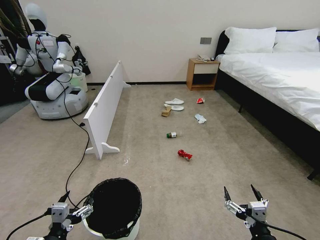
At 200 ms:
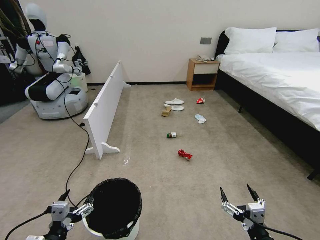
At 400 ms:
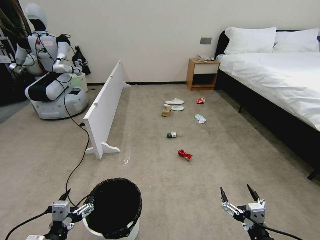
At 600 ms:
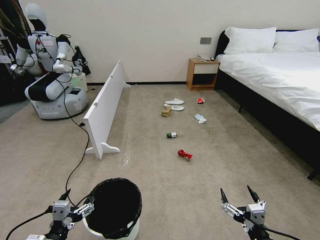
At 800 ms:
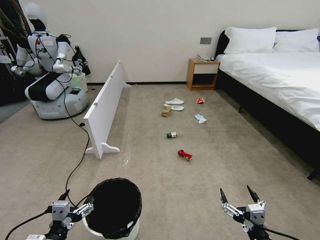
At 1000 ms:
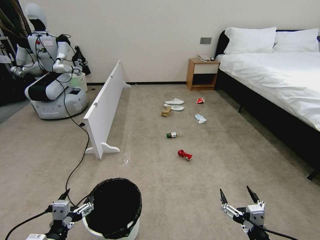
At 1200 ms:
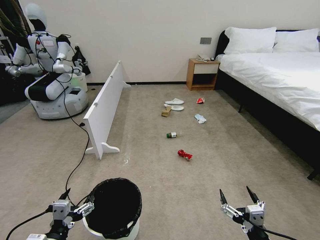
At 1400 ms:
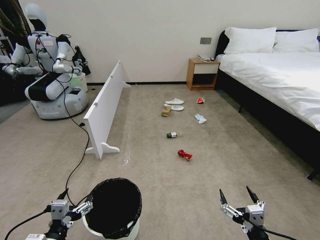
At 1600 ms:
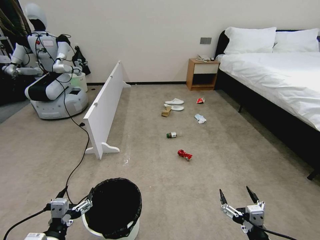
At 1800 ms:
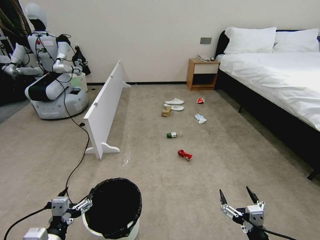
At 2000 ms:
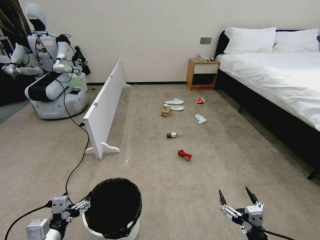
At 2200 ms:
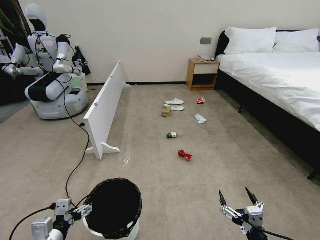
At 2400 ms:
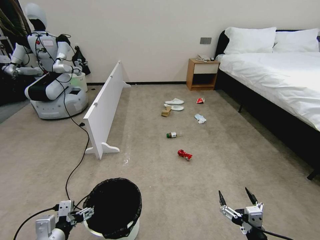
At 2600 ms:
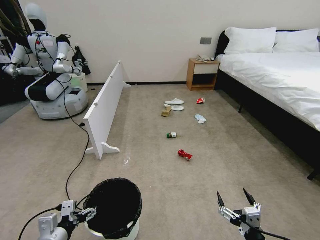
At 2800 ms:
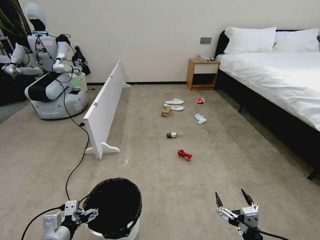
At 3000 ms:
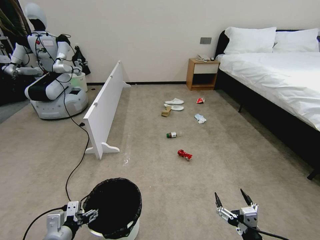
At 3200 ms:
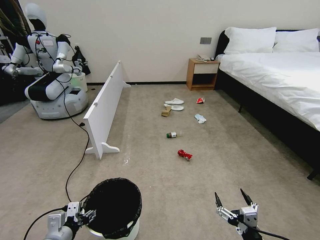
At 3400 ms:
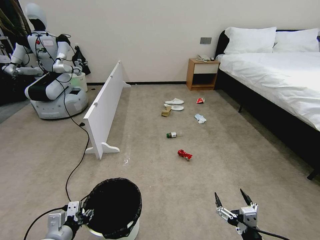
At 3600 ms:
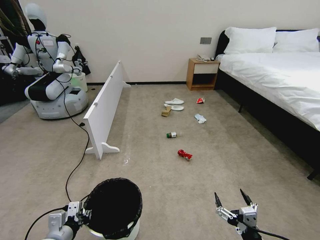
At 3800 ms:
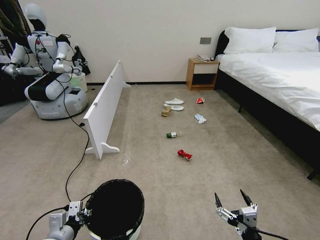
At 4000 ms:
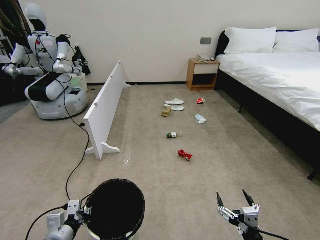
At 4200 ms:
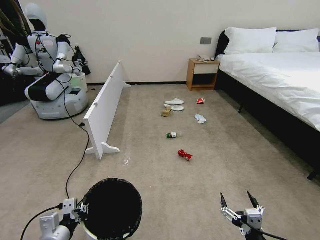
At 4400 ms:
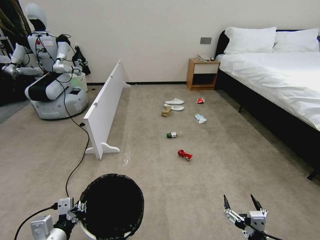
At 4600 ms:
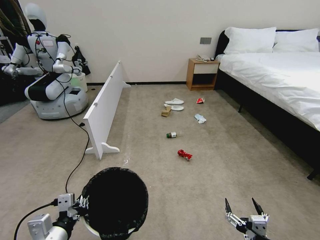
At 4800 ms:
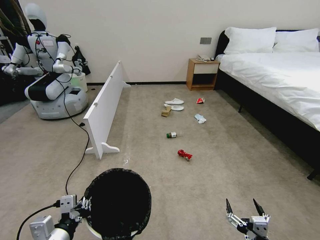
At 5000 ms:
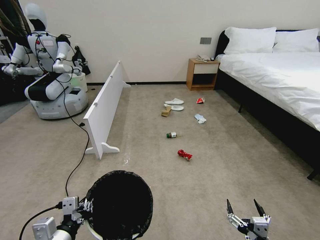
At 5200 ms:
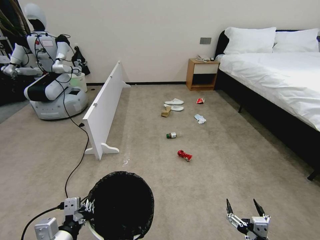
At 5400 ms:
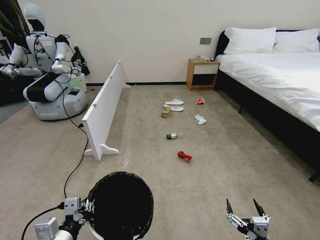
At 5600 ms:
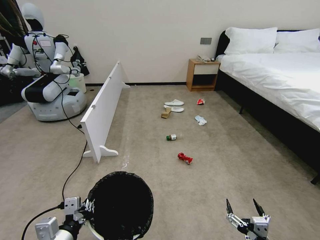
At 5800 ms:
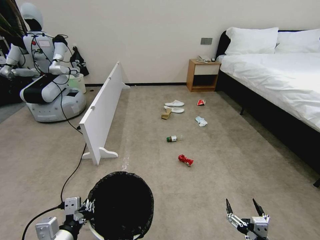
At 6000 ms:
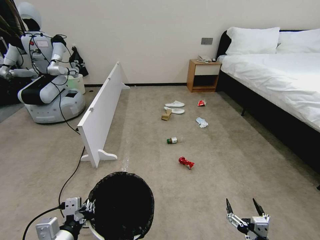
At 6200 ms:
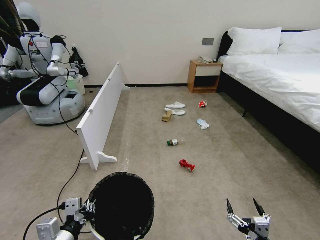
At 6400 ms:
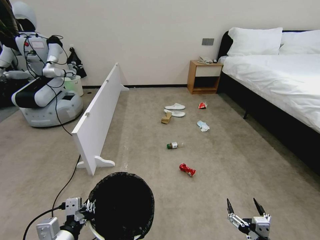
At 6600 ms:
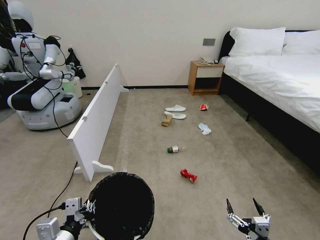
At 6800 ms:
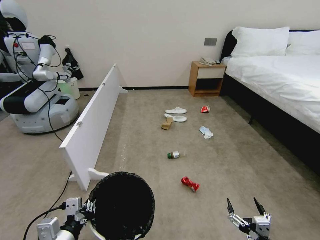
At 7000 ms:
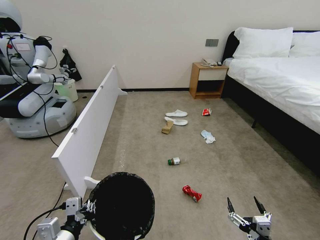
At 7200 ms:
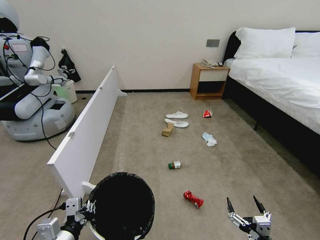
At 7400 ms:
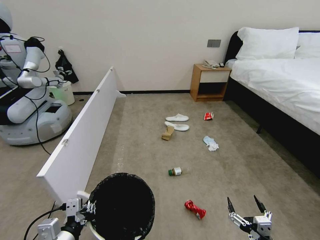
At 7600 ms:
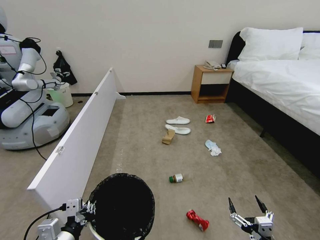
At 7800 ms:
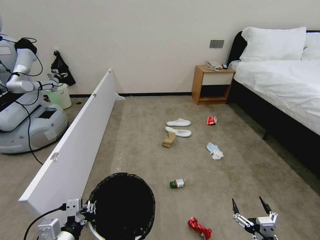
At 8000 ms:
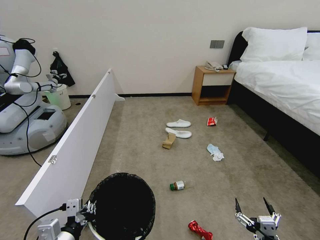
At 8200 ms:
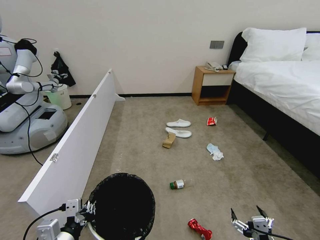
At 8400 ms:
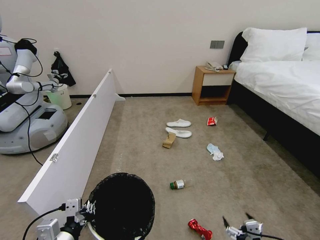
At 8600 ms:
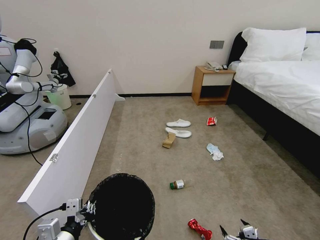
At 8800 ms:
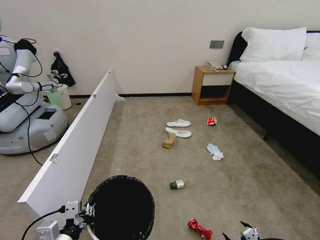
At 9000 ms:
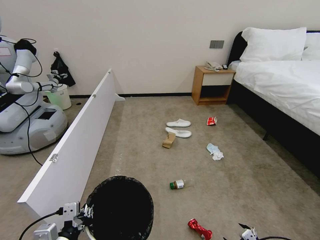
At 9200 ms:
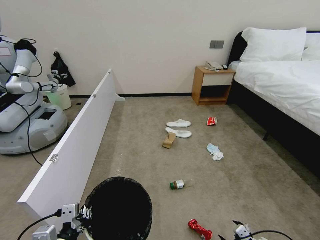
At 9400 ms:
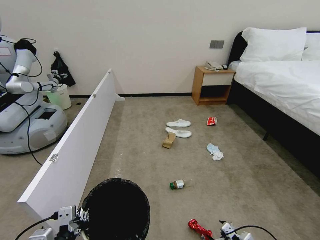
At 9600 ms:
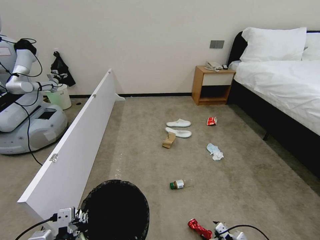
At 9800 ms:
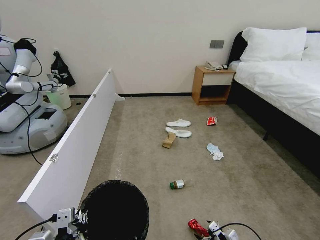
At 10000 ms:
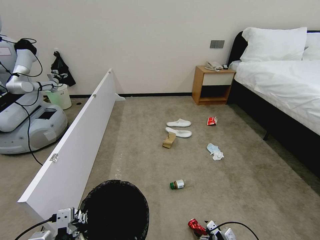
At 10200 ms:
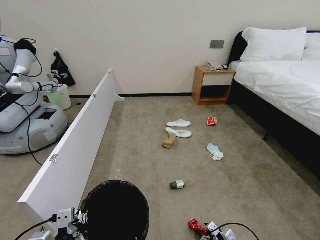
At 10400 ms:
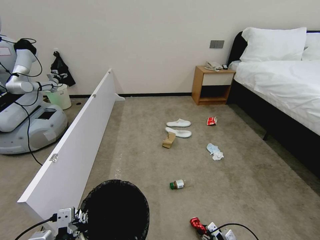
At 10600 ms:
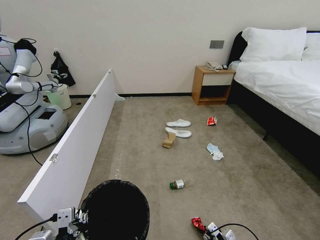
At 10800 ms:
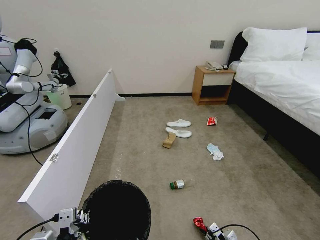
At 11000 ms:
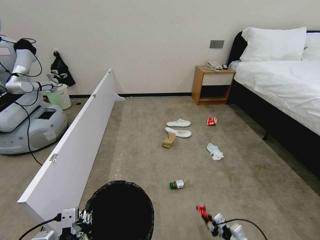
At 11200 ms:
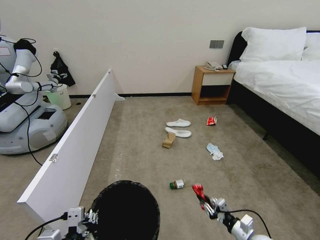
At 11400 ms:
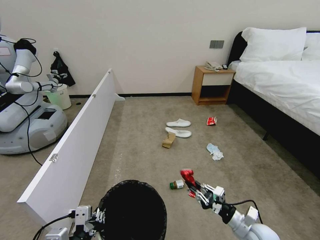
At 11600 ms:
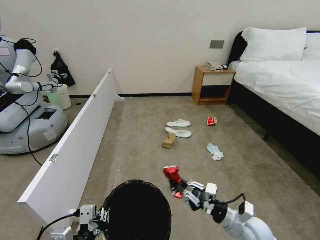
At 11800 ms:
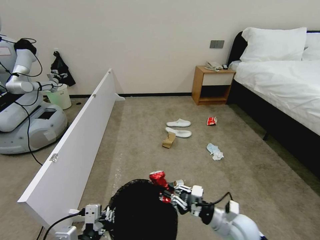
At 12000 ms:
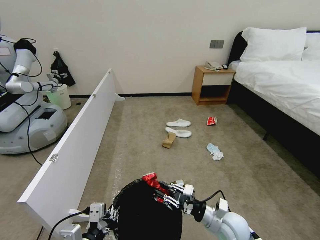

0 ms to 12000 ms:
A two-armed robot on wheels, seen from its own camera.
Task of the whole recording: Pick up the trash bin, then pick up the garbage from the floor and place it into the trash bin.
1600 ms to 3000 ms: The left gripper shifts roughly 5 cm forward.
3000 ms to 4400 ms: The left gripper closes its fingers.
4400 ms to 6000 ms: The grippers stay close to where they were, moving slightly.
7600 ms to 9000 ms: The right gripper is displaced to the right by approximately 10 cm.
9000 ms to 10400 ms: The right gripper goes roughly 15 cm downward, forward and to the left, and closes its fingers.
10400 ms to 12000 ms: The right gripper moves upward and to the left, roughly 20 cm. The left gripper changes place by some 5 cm.

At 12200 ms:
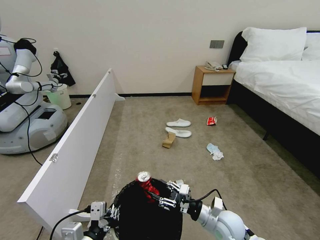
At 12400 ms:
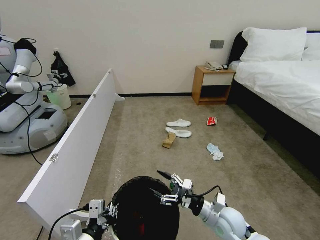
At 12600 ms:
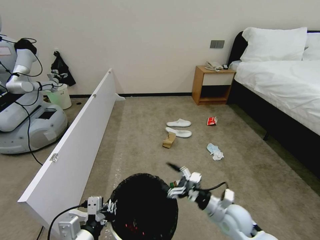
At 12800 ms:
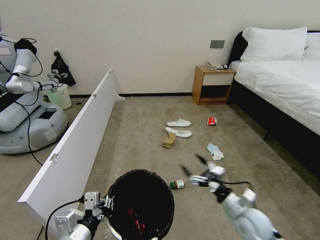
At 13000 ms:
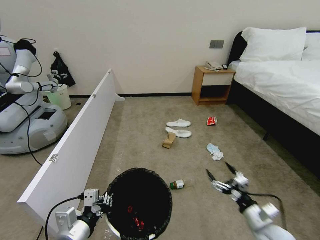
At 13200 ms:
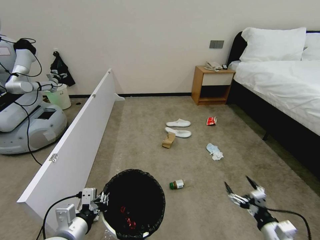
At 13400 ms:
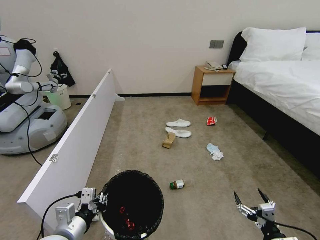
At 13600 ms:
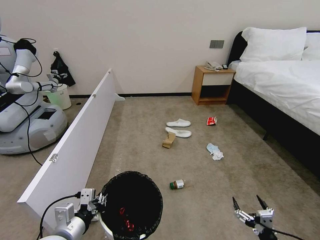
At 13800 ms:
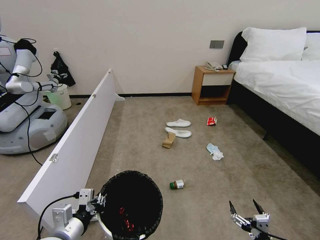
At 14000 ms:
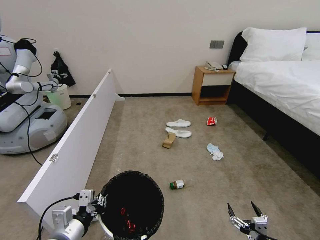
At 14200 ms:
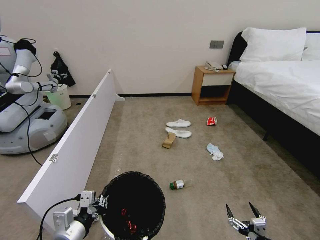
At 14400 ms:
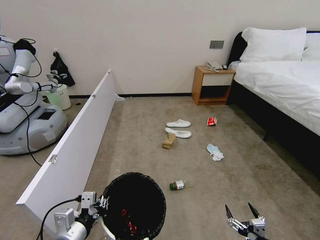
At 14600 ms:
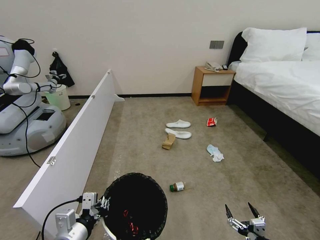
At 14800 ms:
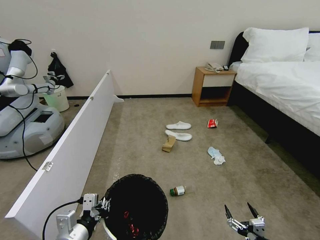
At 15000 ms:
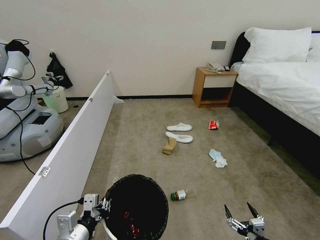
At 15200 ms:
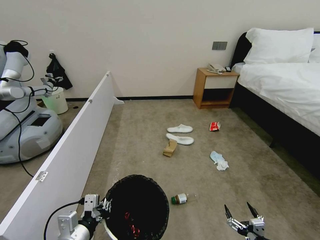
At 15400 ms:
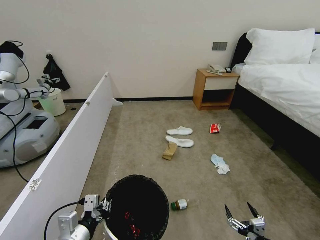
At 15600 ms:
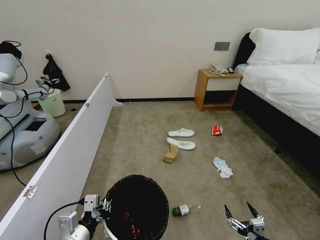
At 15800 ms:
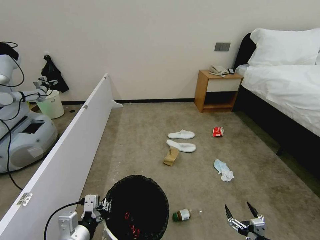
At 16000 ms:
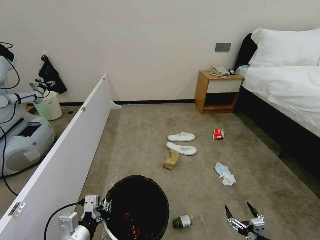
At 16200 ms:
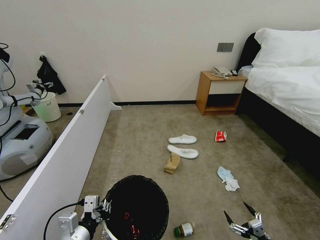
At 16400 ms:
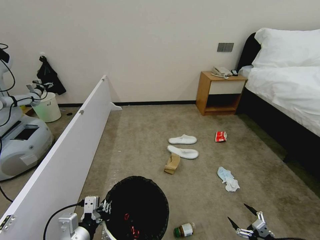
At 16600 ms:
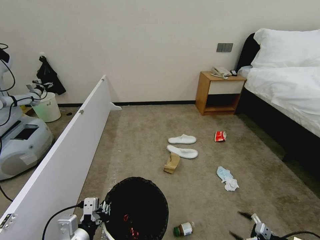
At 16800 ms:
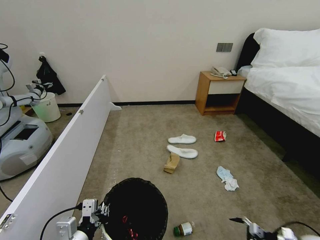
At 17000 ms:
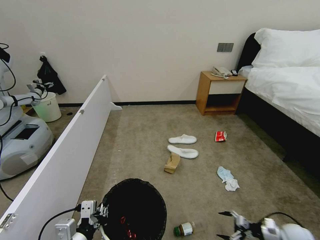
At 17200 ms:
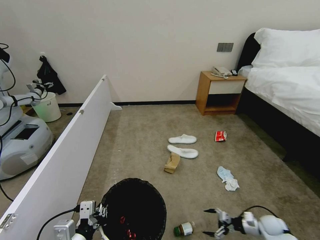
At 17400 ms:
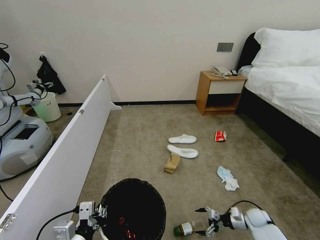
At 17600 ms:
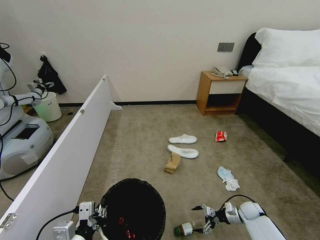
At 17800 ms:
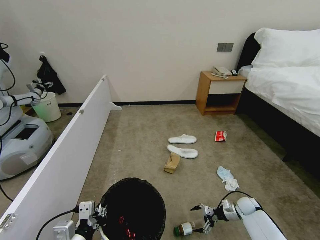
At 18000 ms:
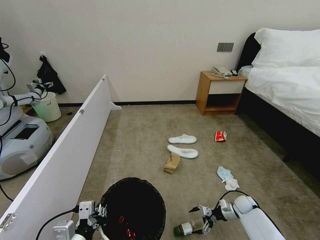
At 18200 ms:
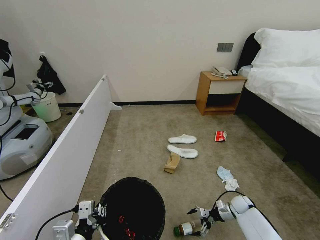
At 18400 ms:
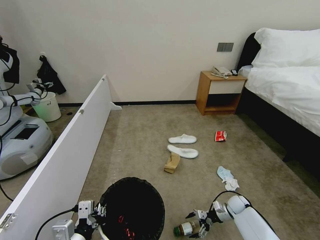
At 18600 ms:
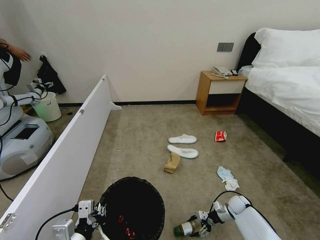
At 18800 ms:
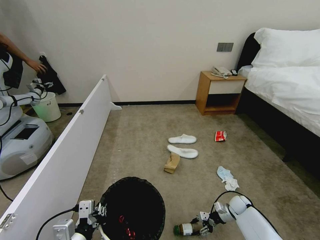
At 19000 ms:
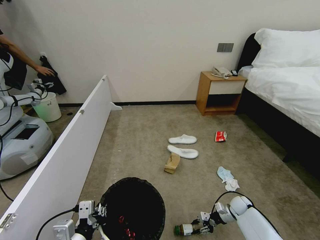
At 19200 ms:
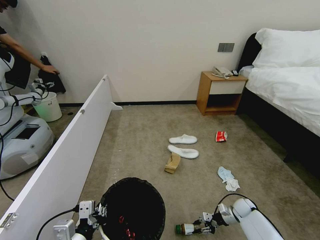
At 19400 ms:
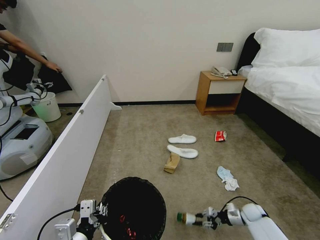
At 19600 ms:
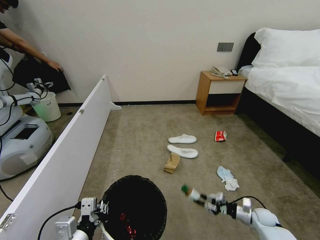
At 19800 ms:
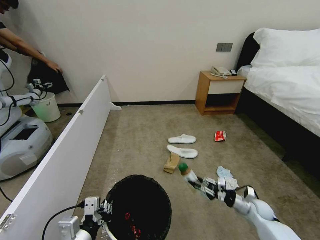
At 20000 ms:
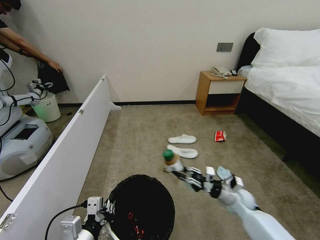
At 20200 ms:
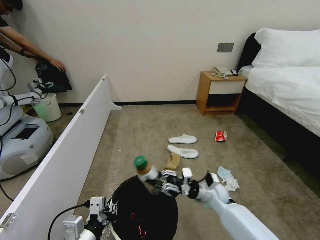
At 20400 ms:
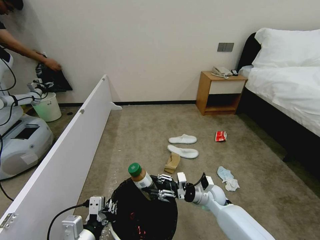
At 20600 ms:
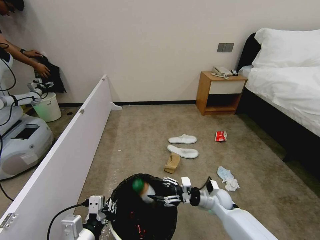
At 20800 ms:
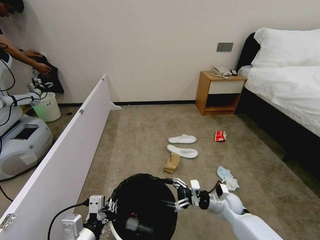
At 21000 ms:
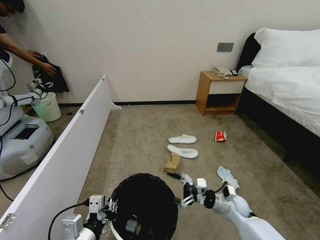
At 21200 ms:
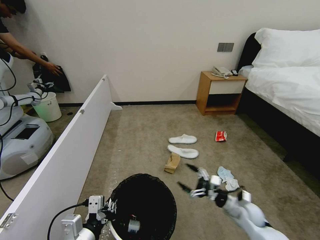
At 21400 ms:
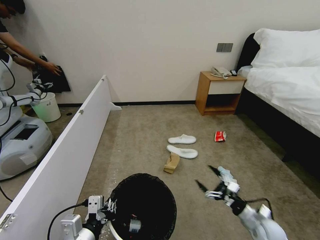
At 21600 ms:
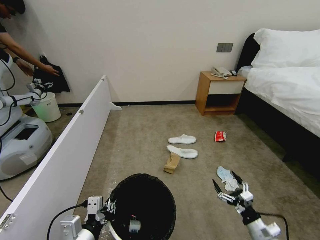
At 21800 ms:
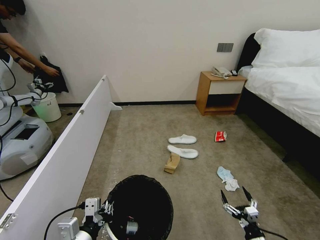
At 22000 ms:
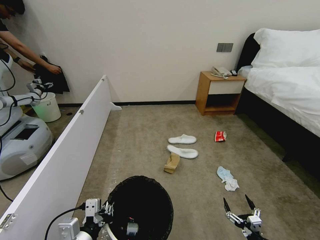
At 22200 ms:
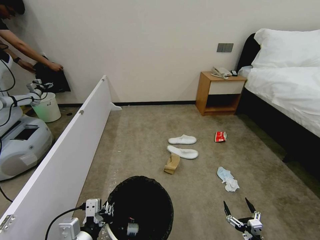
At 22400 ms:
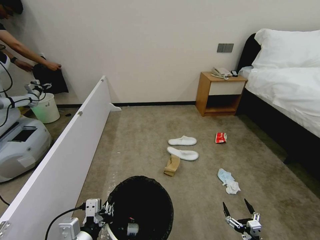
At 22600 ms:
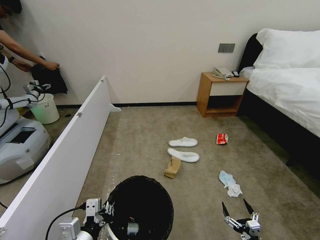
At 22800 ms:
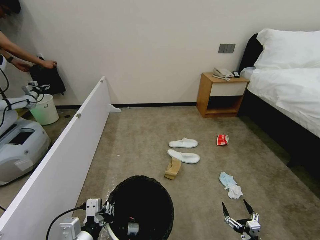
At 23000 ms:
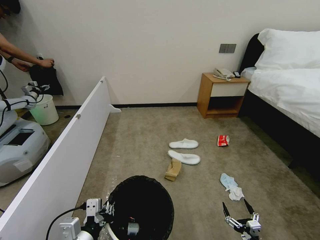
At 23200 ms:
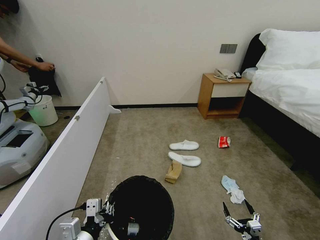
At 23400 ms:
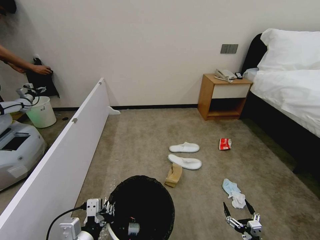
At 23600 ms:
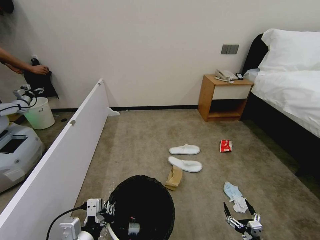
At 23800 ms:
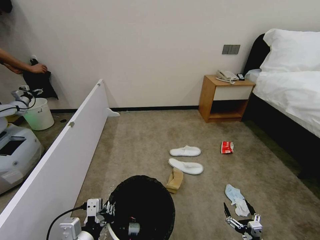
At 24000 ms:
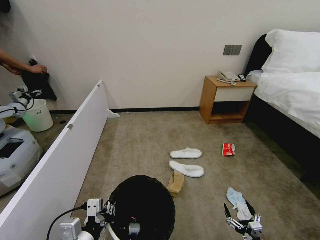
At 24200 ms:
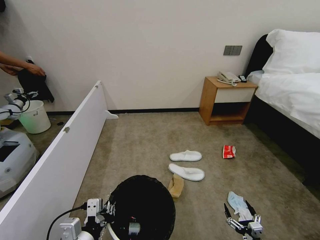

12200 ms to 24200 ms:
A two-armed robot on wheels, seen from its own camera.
Task of the whole recording: Pick up the trash bin, then pick up the garbage from the floor and place it into the trash bin.
12200 ms to 13800 ms: The right gripper is displaced backward and to the right by roughly 20 cm, and opens up. The left gripper goes approximately 5 cm to the left and forward.
13800 ms to 15200 ms: The grippers make only small movements.
15200 ms to 16600 ms: The right gripper goes approximately 20 cm to the right.
16600 ms to 18200 ms: The right gripper heads forward and to the left, covering some 30 cm.
18200 ms to 19800 ms: The right gripper is displaced upward and backward by approximately 10 cm, and closes its fingers.
19800 ms to 21200 ms: The right gripper shifts about 10 cm to the left and upward, and opens.
21200 ms to 22600 ms: The right gripper shifts approximately 20 cm backward and downward.
